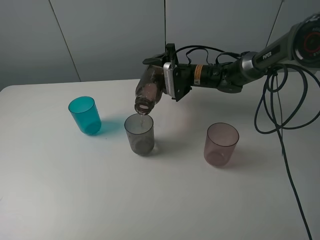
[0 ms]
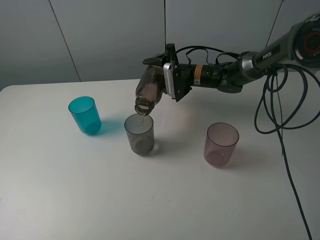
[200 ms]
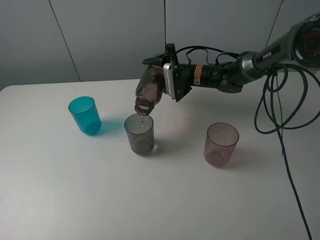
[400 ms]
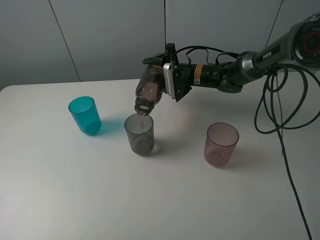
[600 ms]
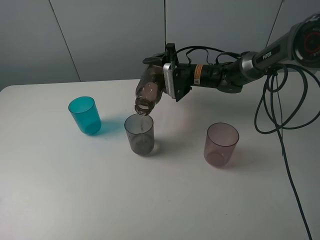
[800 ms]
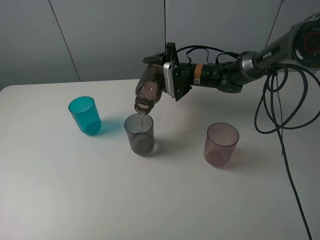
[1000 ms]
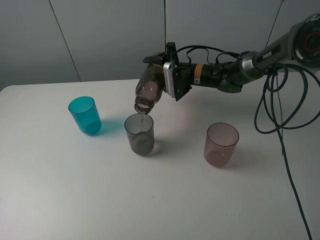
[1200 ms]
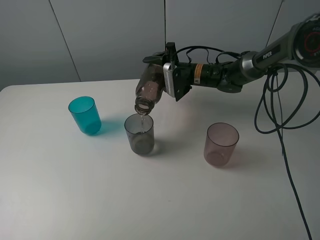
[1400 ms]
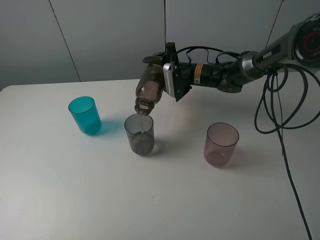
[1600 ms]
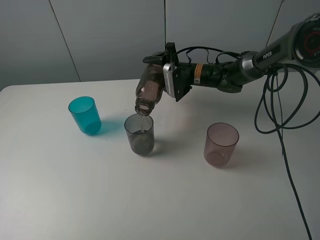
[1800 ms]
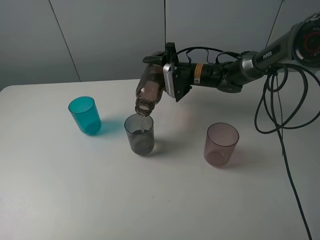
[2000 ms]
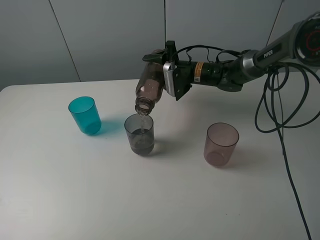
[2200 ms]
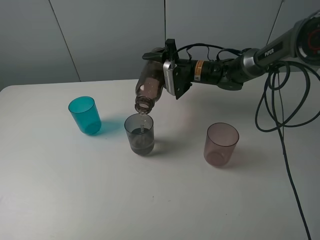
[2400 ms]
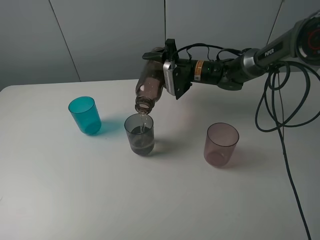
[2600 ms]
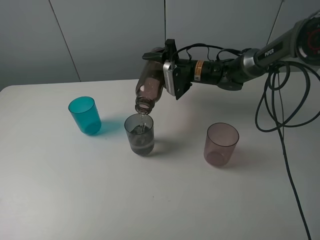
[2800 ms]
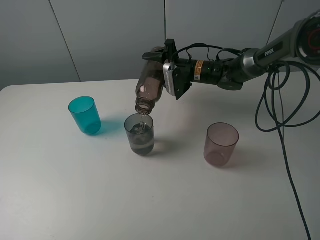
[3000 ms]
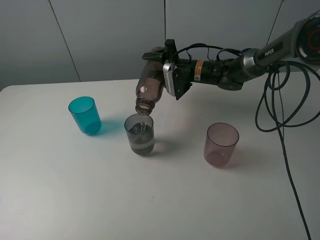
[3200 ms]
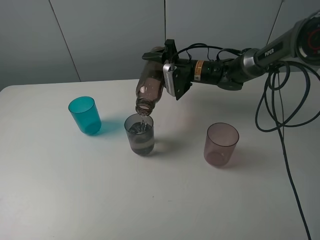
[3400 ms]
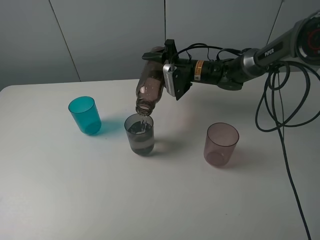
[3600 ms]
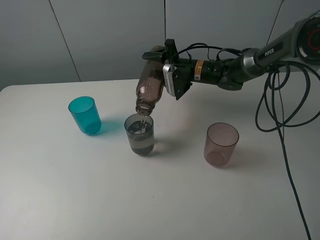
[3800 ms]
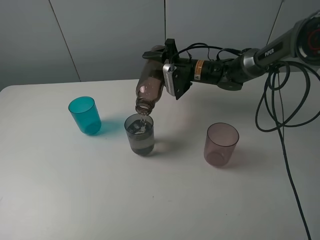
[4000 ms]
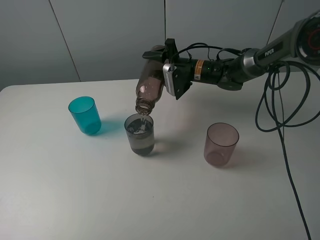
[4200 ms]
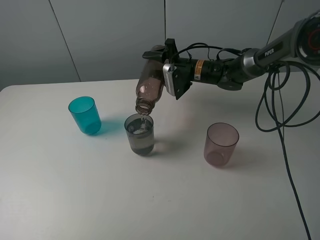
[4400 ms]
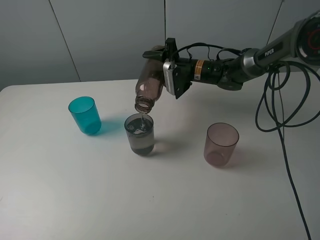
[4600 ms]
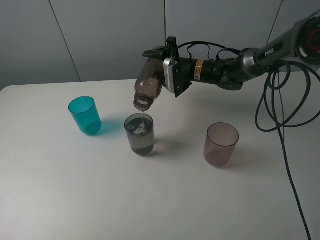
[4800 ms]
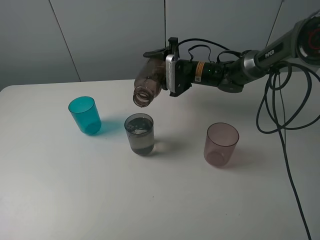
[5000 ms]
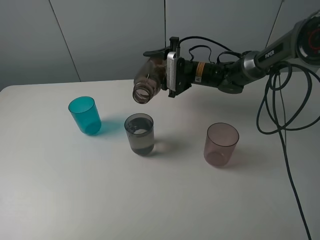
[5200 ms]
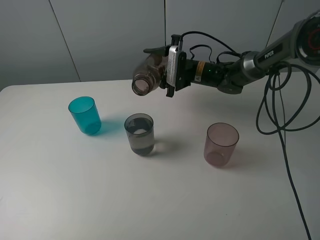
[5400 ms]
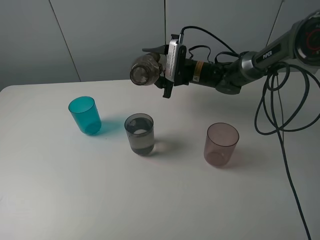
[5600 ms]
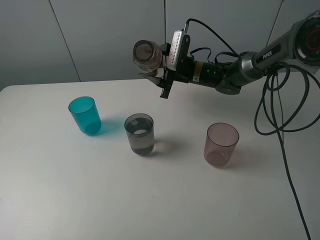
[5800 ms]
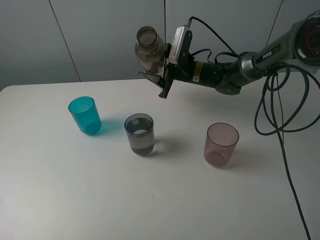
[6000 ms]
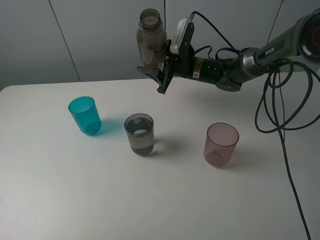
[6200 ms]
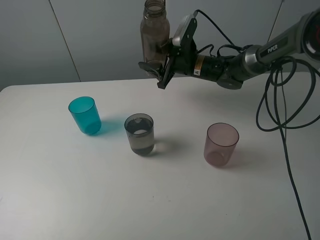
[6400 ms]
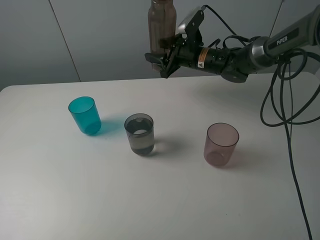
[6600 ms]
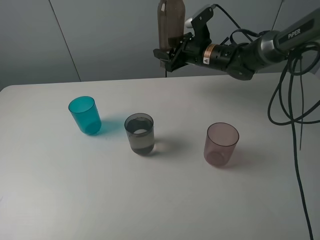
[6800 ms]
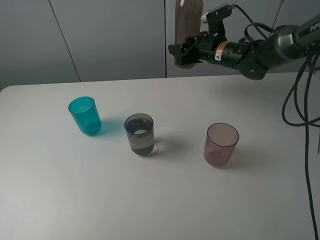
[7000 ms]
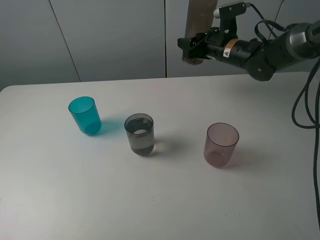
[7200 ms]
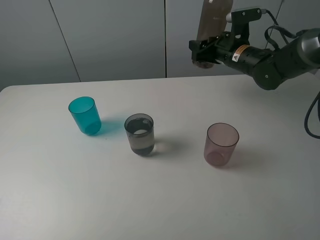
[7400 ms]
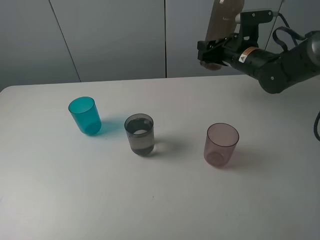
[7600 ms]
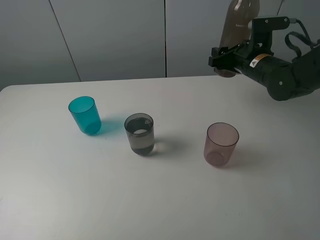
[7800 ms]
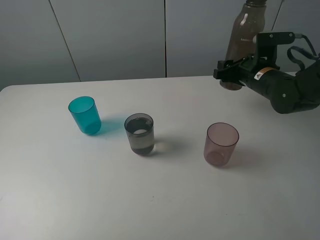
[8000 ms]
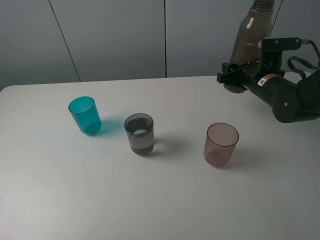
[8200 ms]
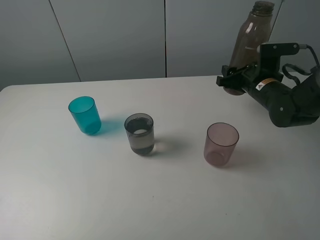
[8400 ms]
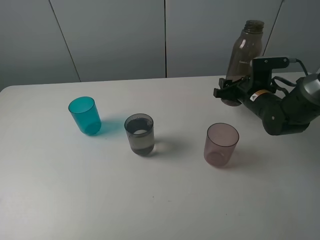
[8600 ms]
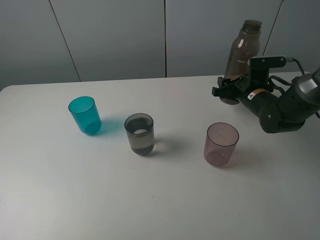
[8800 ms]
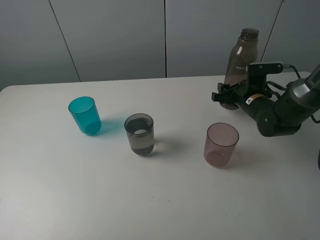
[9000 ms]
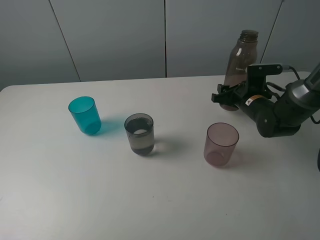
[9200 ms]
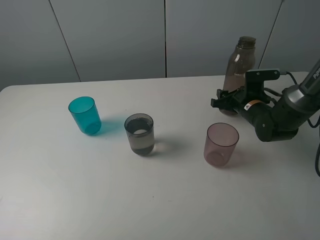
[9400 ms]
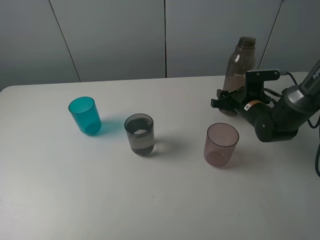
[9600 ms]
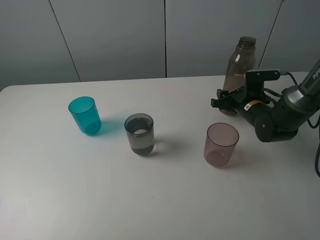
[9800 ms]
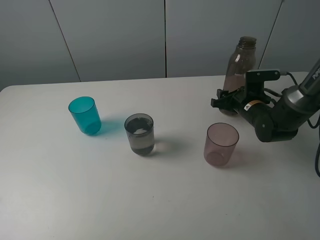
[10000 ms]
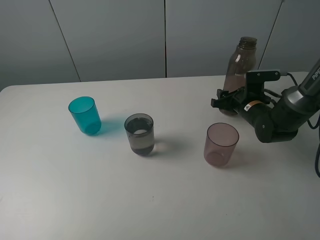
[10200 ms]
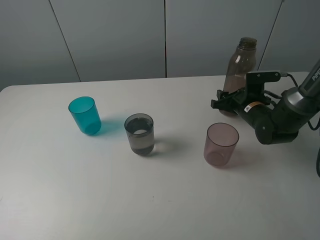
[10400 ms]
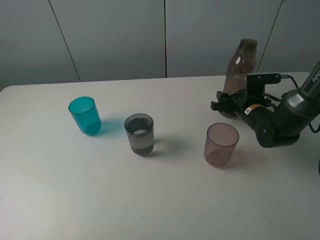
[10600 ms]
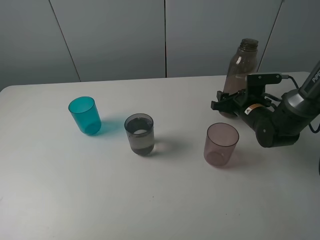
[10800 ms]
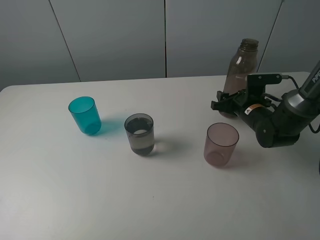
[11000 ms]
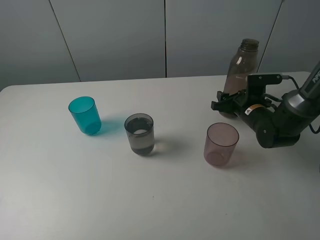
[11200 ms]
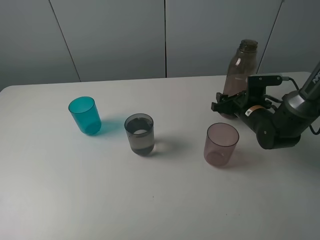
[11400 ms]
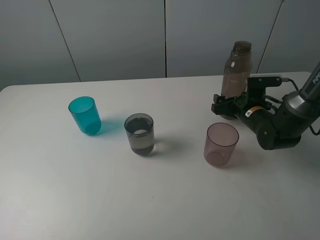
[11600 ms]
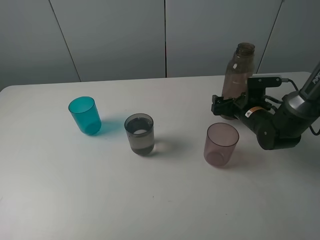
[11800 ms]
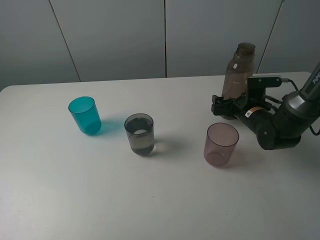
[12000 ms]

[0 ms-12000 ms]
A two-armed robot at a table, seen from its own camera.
Task of the whole recording: pick up the bottle filled with water and pour water into the middle cup of the three cups.
0 ms to 1600 ms: Both grippers stay about where they are.
1600 ms to 3000 ms: There are only small adjustments of the grippers.
3000 ms to 4400 ms: Both grippers stay about where they are.
6000 ms to 7600 ms: The right gripper shifts about 10 cm to the right and upward.
7600 ms to 9000 ms: The right gripper goes some 10 cm downward.
9000 ms to 10400 ms: The grippers move only a little.
10400 ms to 12000 ms: The right gripper opens its fingers.

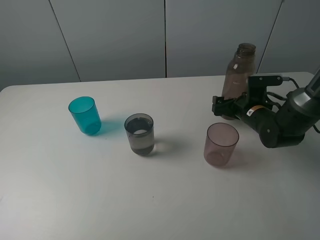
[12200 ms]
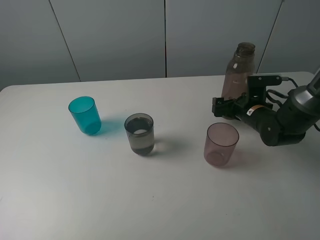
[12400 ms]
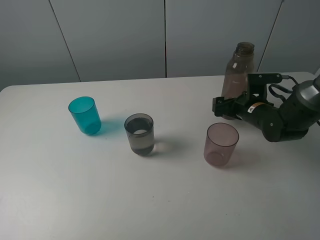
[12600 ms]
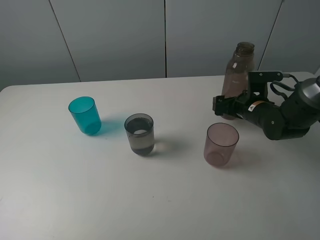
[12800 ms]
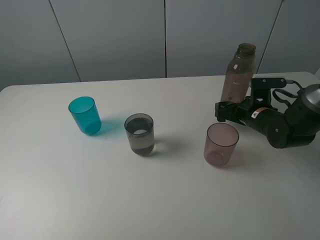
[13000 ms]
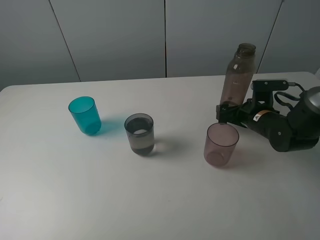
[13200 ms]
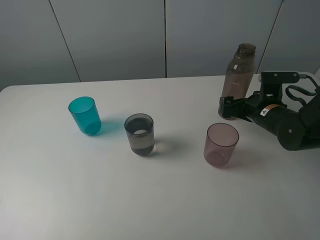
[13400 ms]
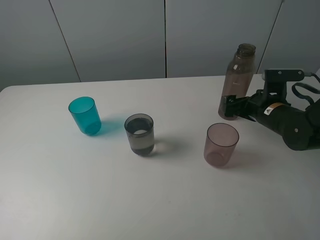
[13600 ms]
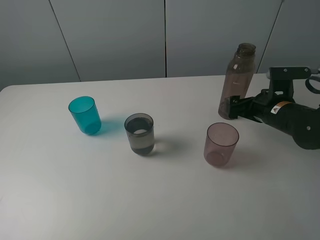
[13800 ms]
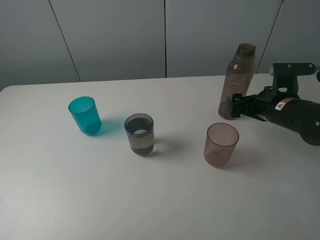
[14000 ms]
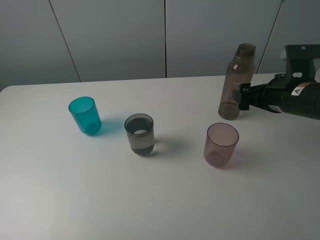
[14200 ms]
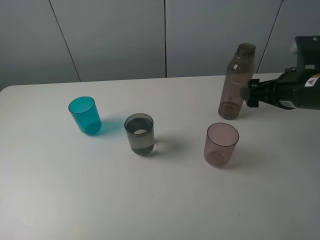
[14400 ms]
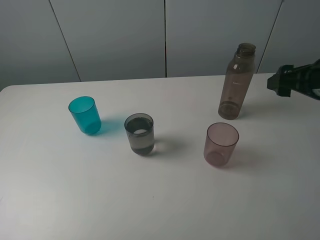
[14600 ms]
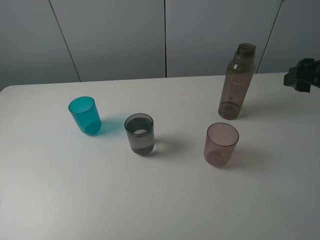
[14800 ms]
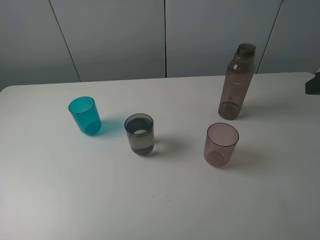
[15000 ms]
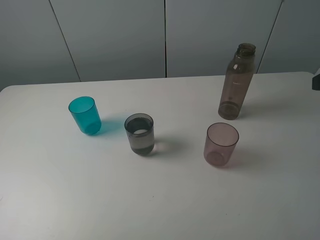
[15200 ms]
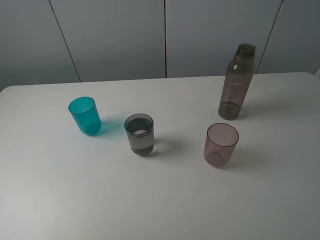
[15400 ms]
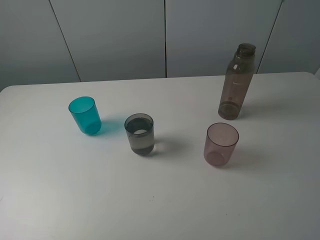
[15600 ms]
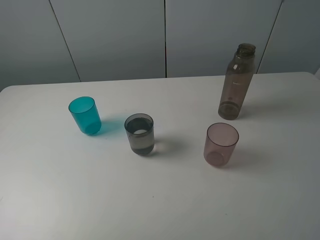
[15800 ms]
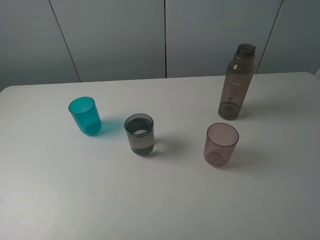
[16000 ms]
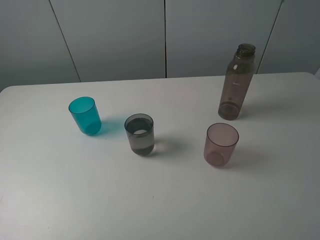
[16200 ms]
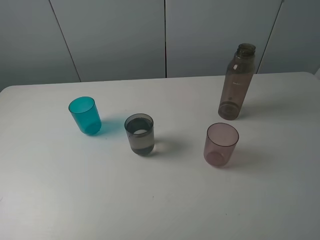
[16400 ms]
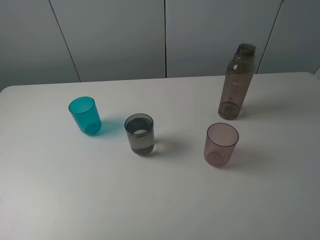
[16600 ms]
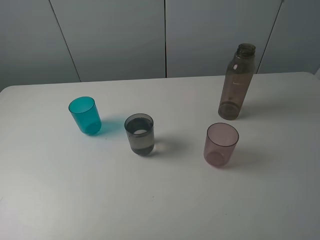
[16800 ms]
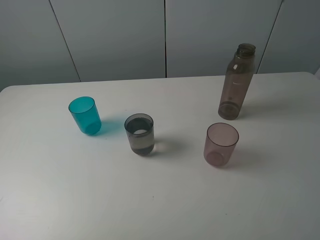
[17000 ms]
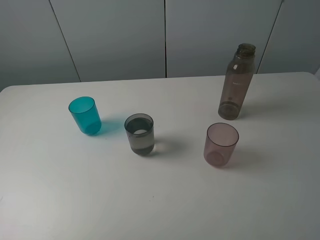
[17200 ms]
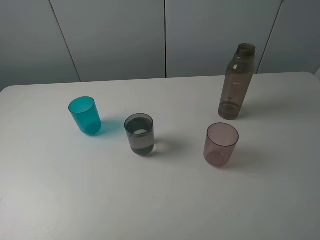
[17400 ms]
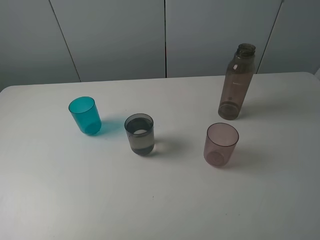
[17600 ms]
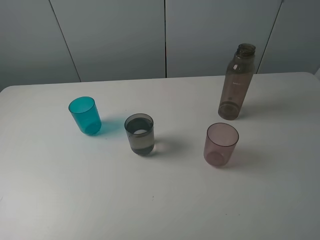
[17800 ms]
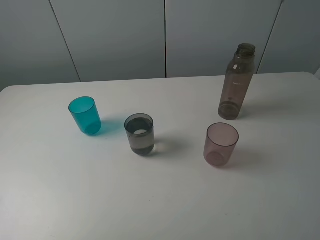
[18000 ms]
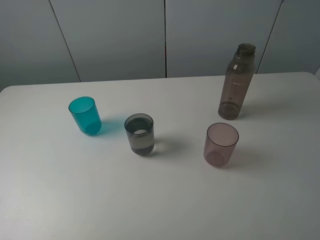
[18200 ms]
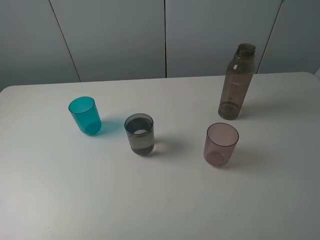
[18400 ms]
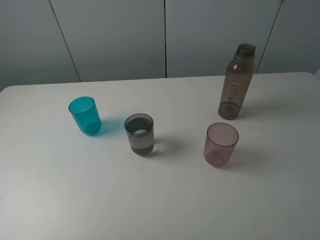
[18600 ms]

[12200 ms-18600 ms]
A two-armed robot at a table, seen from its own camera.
Task of the whole recording: pick up the bottle filled with water and pour water into the middle cup of the three cups.
Step, 12200 ms to 14400 ms: Place the transparent bottle with the right gripper.
12200 ms to 13800 ms: The right gripper heads upward and backward, covering approximately 10 cm.
13800 ms to 15400 ms: The right gripper travels upward and backward by approximately 25 cm, and closes up.
17000 ms to 18600 ms: The two grippers keep their place.

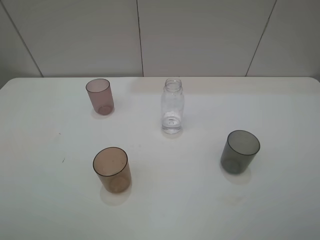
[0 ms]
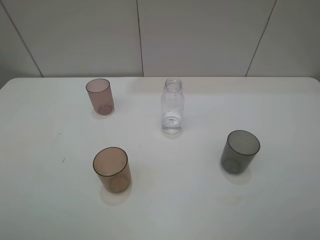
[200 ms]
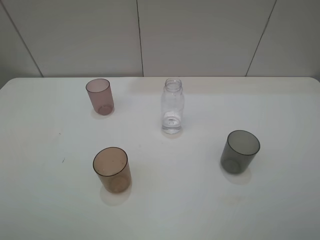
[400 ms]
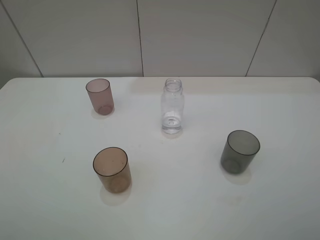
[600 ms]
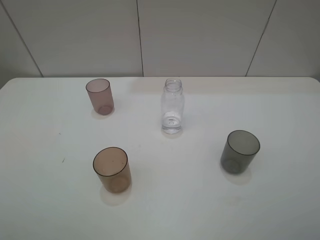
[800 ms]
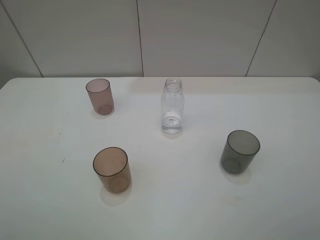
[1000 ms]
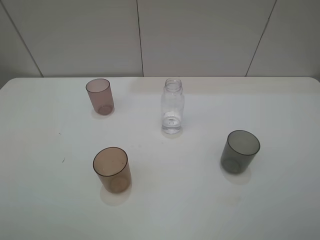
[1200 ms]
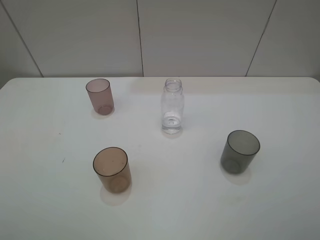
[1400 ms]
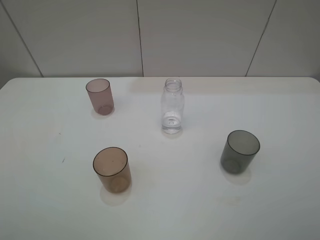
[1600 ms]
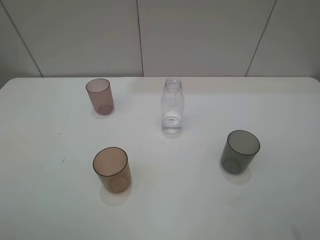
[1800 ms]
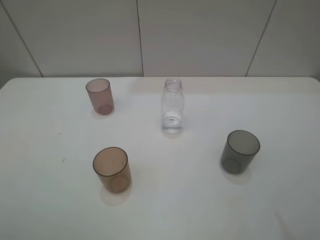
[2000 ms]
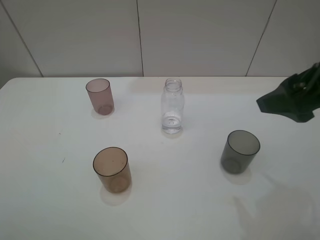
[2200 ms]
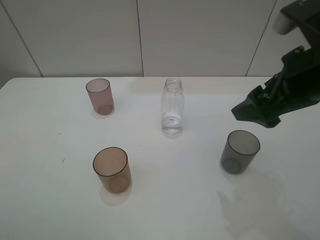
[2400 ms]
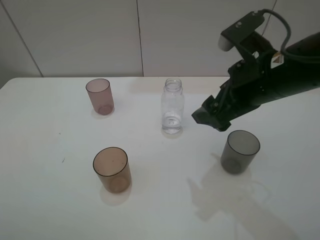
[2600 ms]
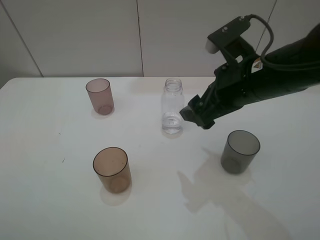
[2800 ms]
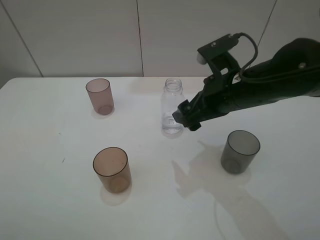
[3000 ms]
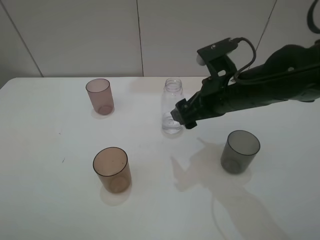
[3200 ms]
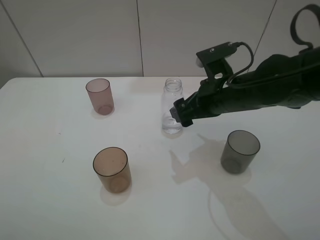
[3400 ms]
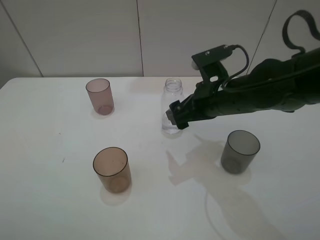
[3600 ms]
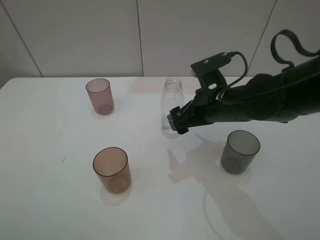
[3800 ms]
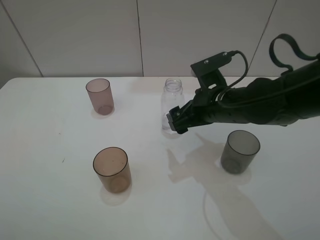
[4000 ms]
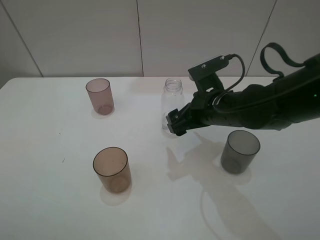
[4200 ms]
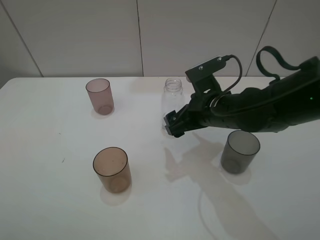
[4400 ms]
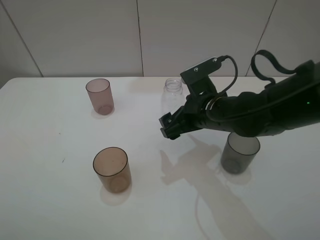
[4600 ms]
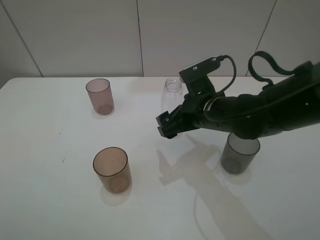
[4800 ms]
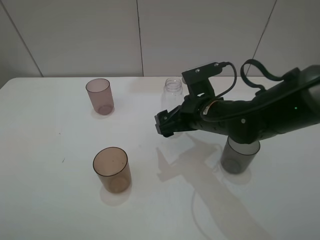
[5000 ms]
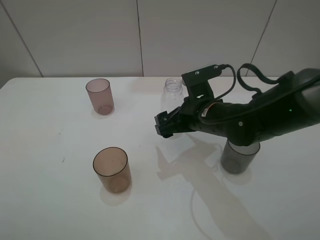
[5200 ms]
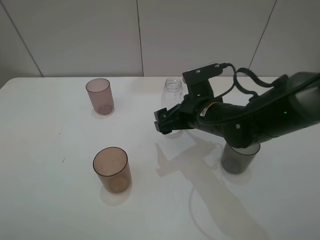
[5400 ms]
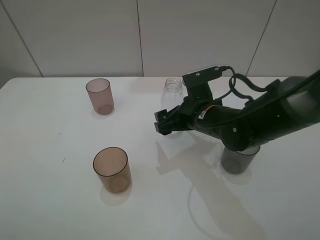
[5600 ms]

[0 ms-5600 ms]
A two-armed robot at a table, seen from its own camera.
Task of the whole recording: pick up the bottle filled with water and pour water into the middle cup of the three cups.
0 ms to 1400 ms: The two grippers keep their place.
1400 ms to 2800 ms: The right gripper travels forward and to the left by roughly 30 cm.
2800 ms to 4200 ms: The right gripper travels downward by roughly 10 cm.
4200 ms to 5600 ms: The grippers make only small movements.
